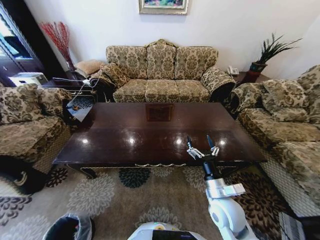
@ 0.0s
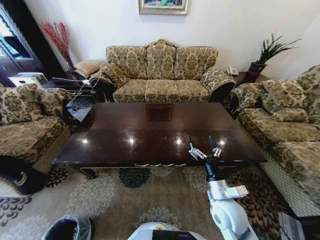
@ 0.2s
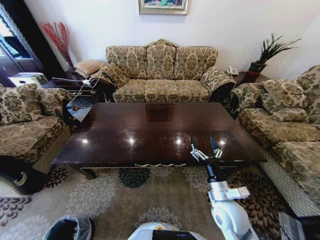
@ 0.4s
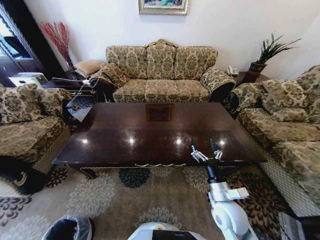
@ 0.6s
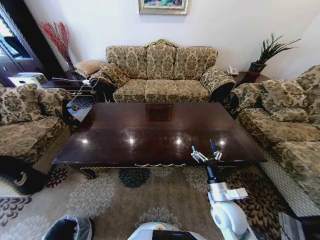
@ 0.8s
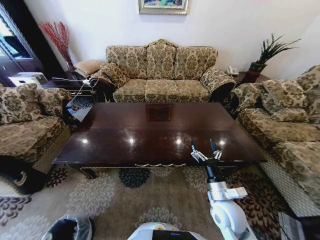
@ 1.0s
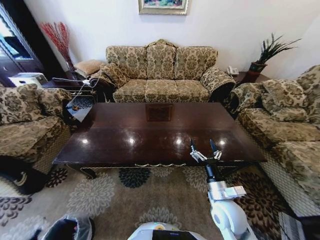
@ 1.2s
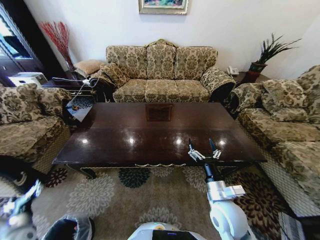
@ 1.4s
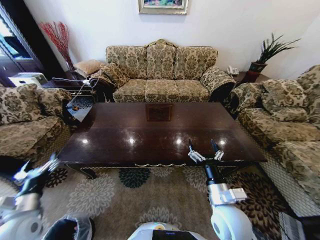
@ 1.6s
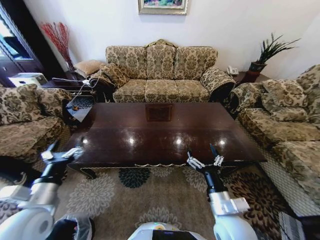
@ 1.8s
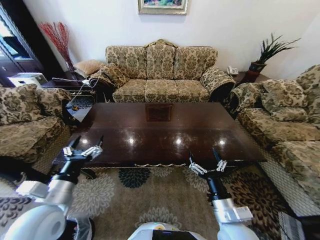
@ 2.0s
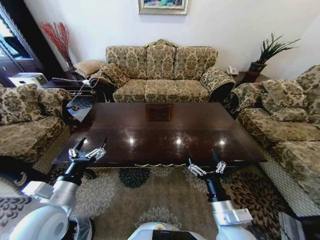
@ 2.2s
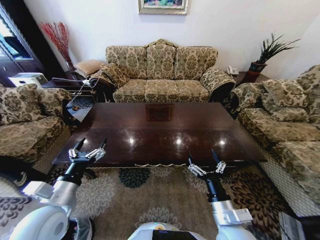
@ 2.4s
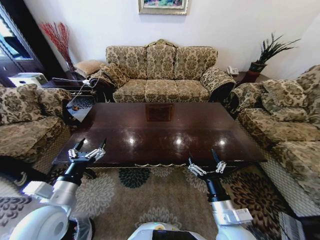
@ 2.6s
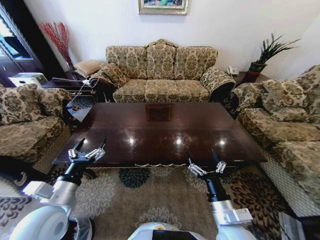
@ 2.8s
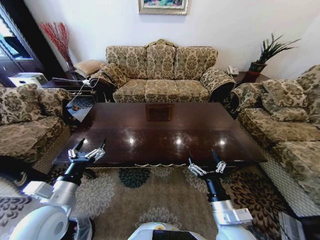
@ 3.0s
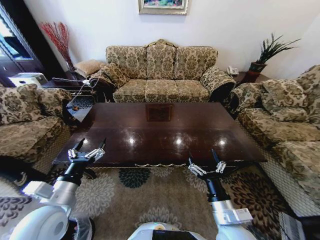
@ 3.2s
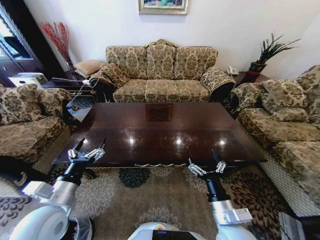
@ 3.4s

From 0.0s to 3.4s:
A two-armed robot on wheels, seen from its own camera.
Task of the whole recording: Move to the front of the table and place the trash on the table into the trash bin.
From 0.0s to 1.6s: The left gripper heads upward, covering approximately 35 cm, and opens.
From 1.6s to 3.4s: The left gripper shifts about 15 cm to the right and upward.
